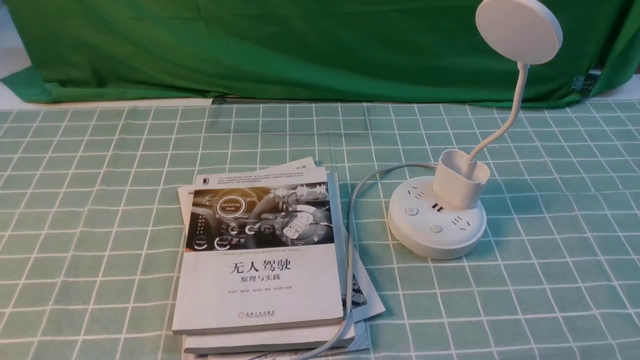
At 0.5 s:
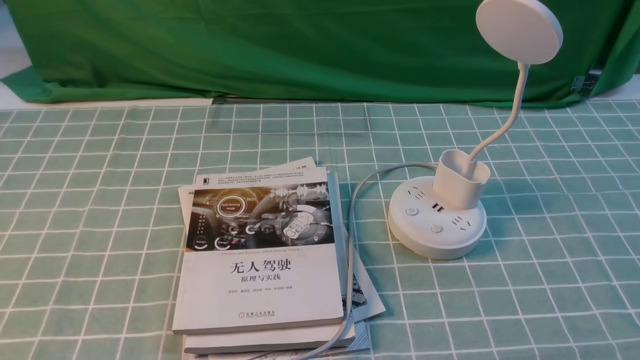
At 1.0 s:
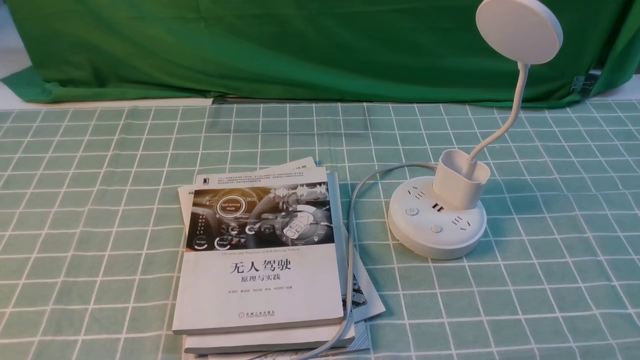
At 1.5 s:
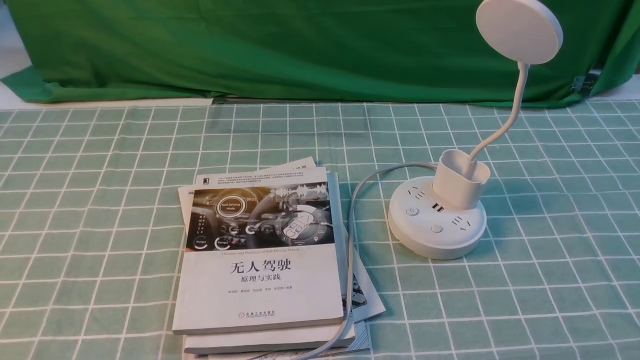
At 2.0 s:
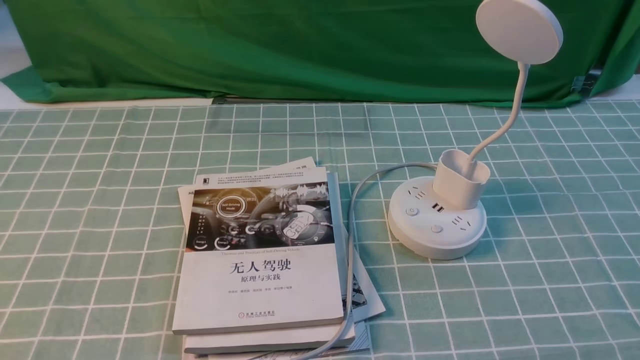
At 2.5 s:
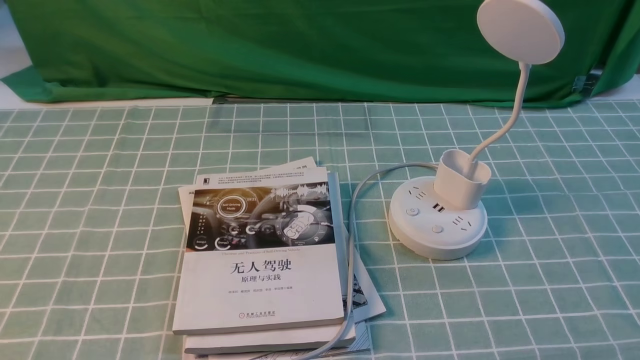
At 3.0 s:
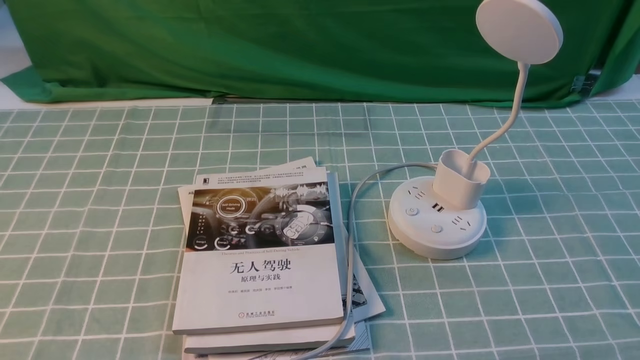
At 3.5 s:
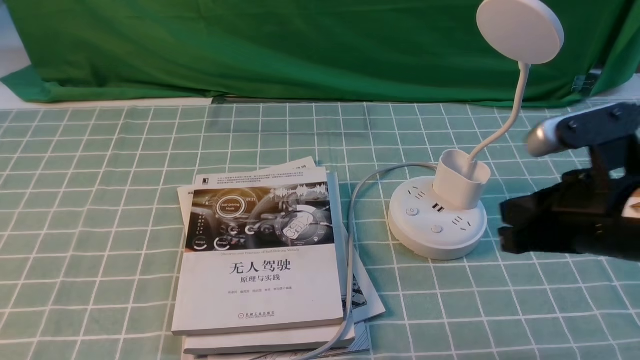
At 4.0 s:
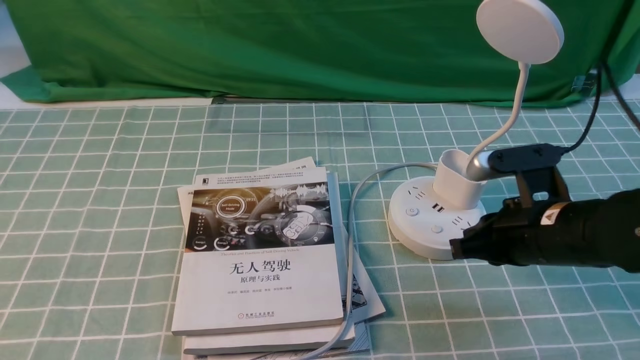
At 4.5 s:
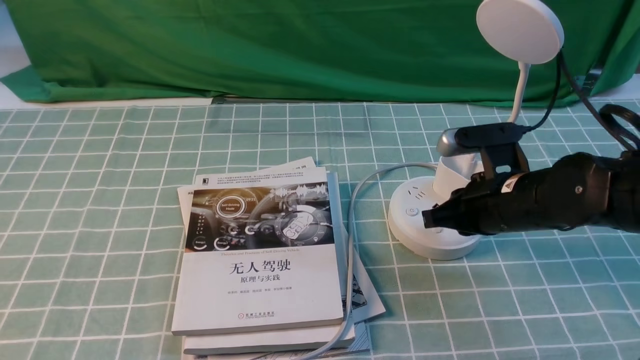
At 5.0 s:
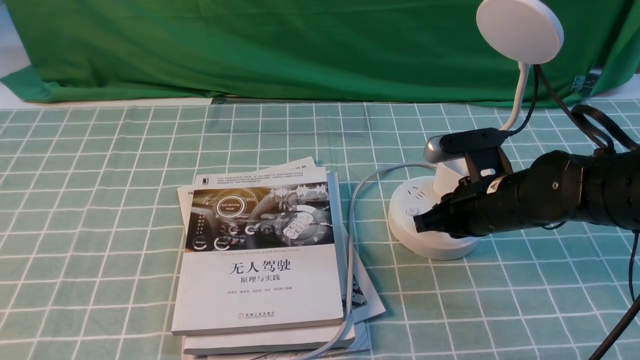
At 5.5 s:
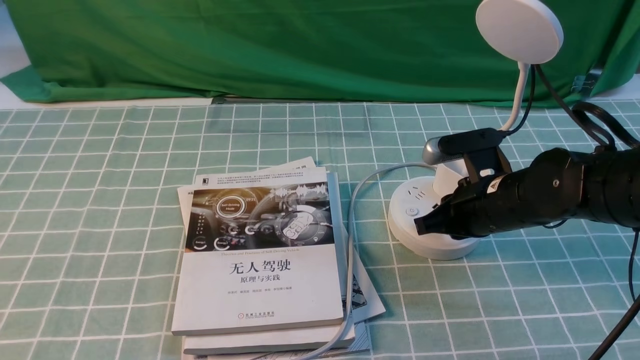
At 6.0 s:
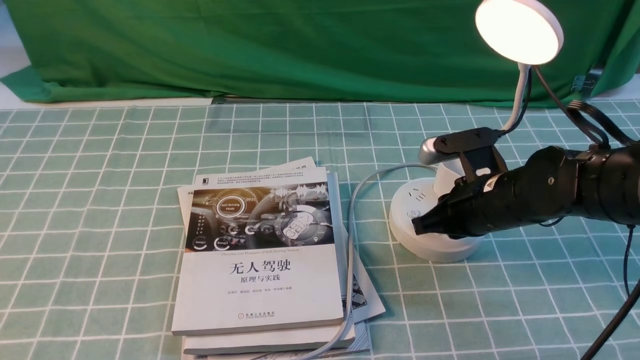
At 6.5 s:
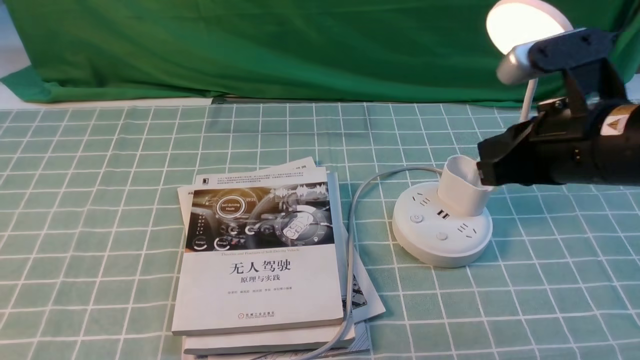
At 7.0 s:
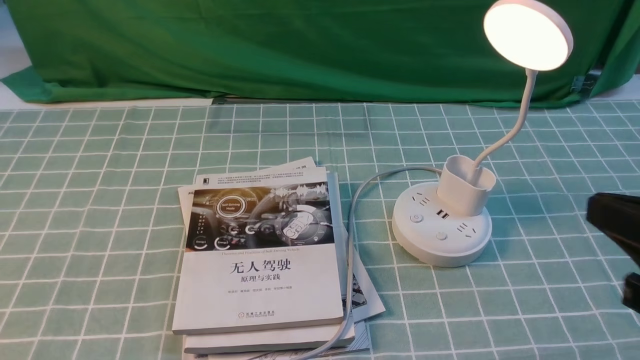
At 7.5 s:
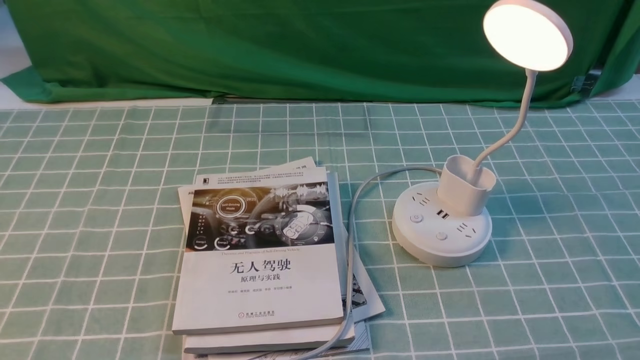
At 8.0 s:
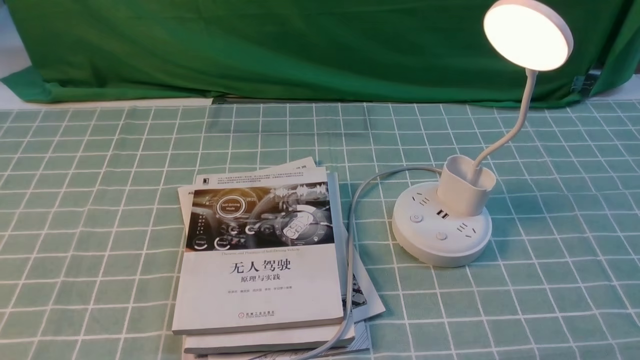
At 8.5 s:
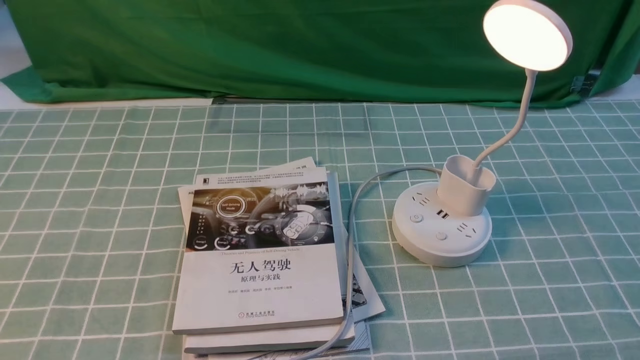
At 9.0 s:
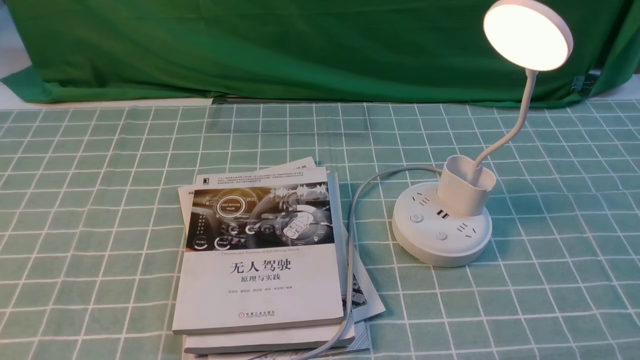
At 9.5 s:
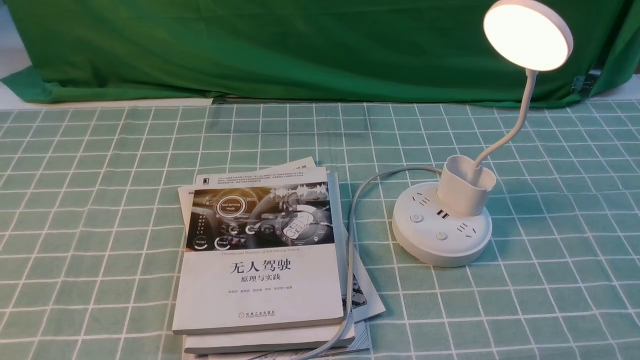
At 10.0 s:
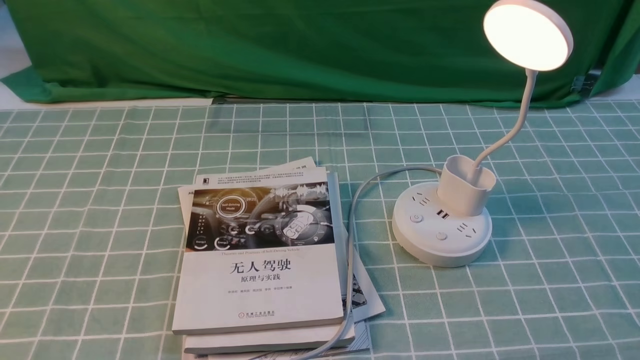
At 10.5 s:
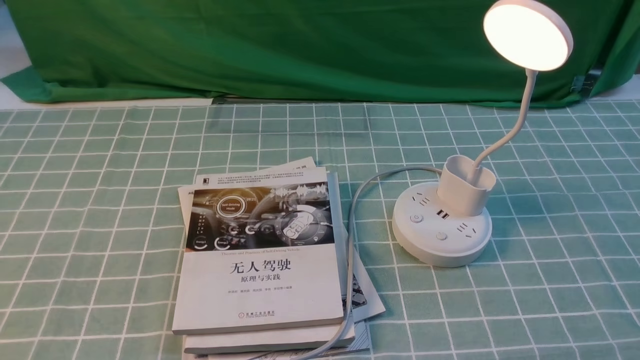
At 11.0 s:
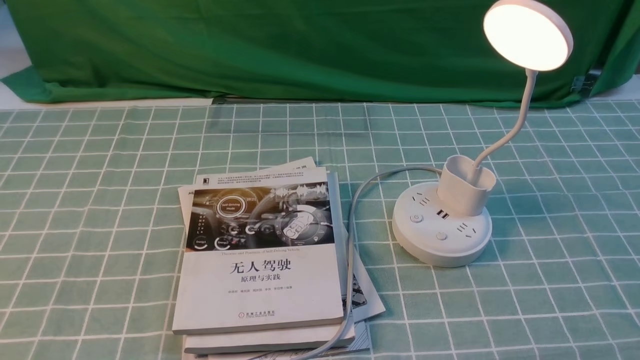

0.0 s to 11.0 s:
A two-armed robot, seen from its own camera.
Step, 0.0 to 6.0 s: use the right arm to press the button switch on the lamp holder.
2.0 to 3.5 s: The right gripper shifts approximately 20 cm forward, to the left and upward, and closes.
3.5 to 5.5 s: The right gripper moves forward and downward, roughly 15 cm.
5.5 to 7.5 s: The right gripper goes approximately 30 cm backward, upward and to the right.
9.0 to 11.0 s: Neither gripper changes place.

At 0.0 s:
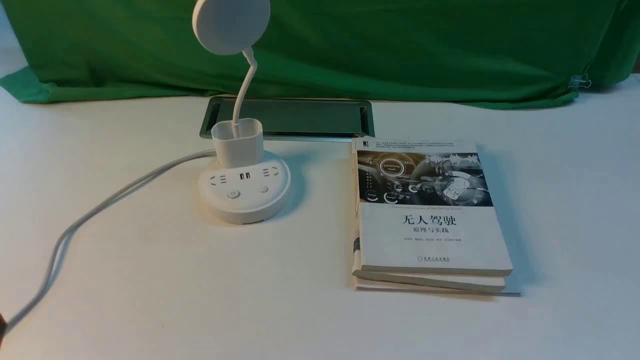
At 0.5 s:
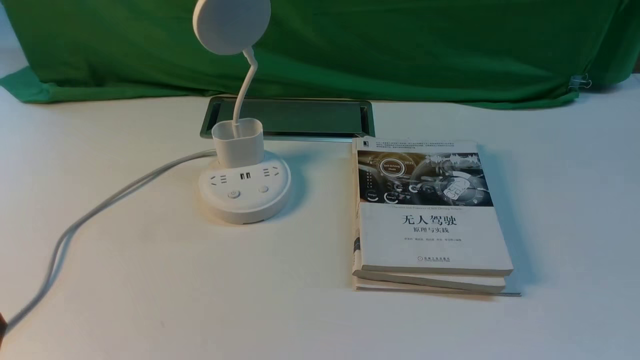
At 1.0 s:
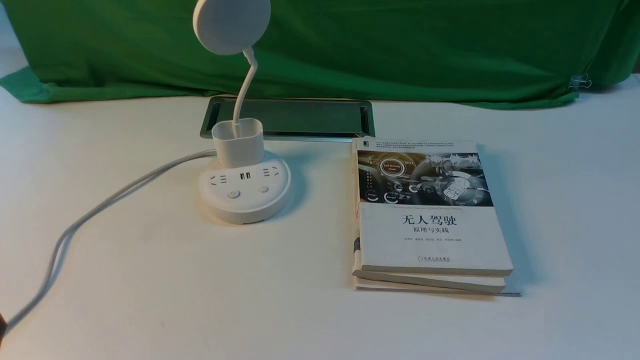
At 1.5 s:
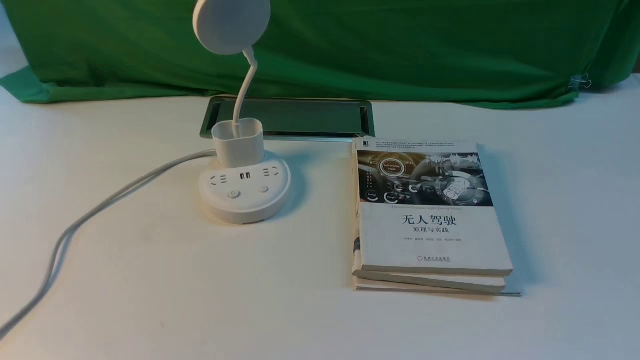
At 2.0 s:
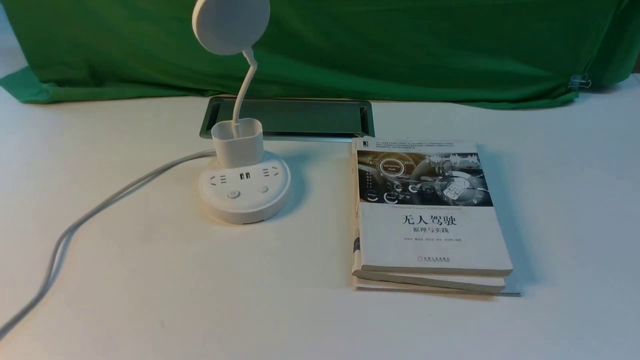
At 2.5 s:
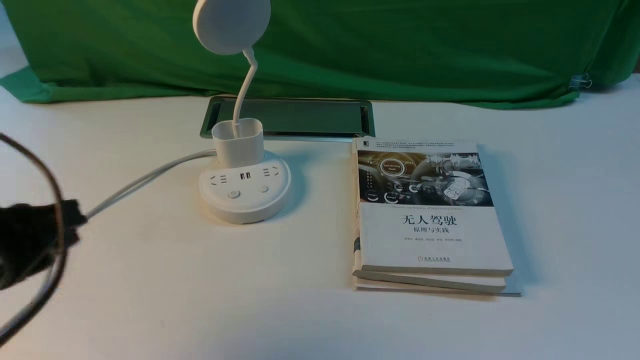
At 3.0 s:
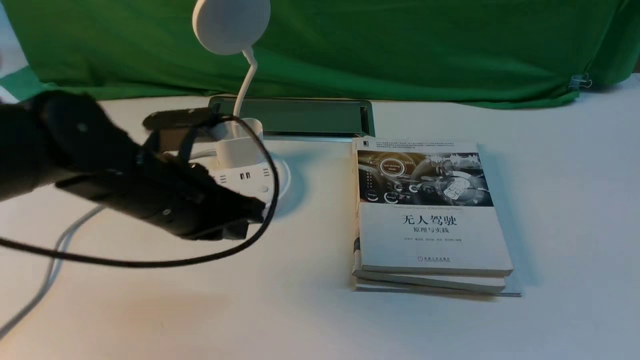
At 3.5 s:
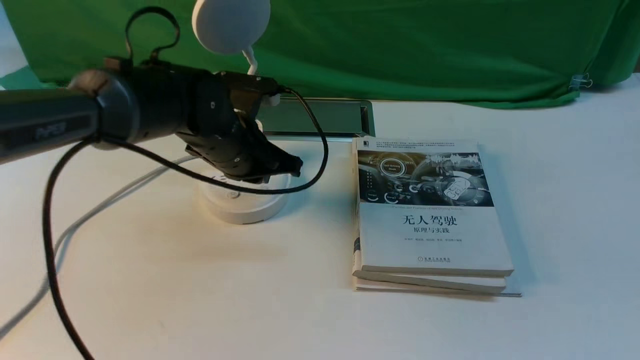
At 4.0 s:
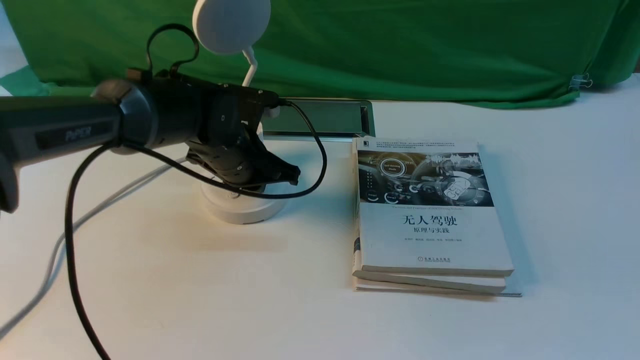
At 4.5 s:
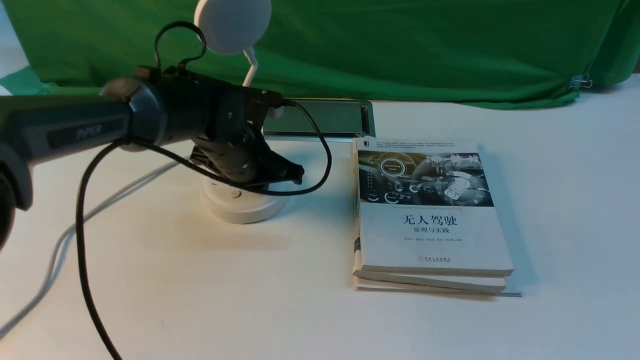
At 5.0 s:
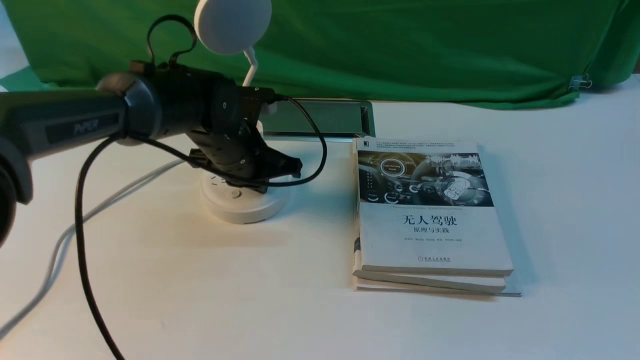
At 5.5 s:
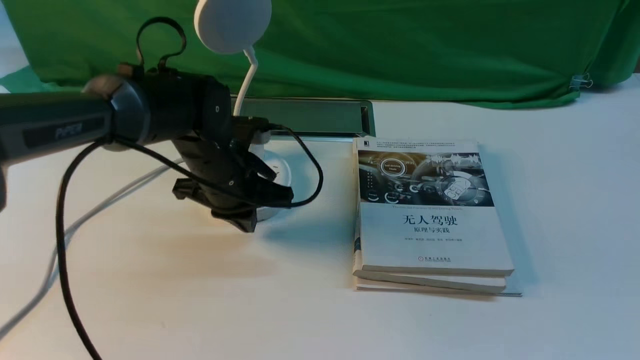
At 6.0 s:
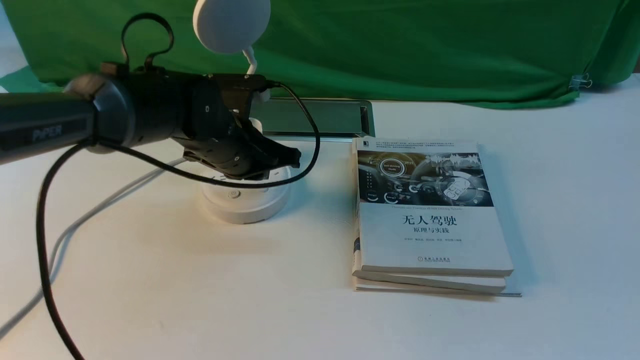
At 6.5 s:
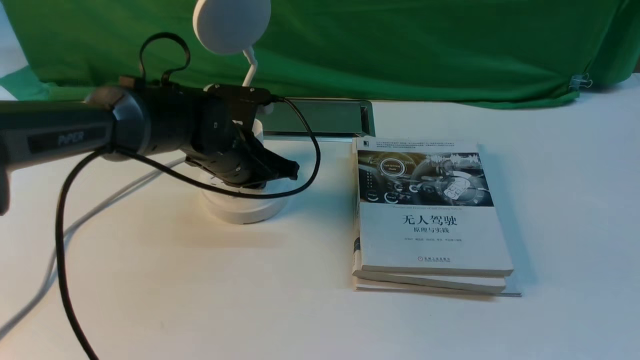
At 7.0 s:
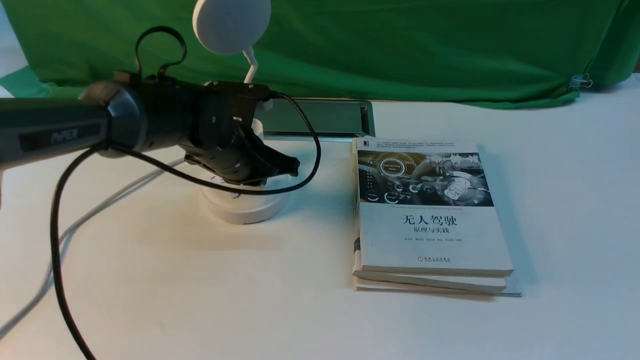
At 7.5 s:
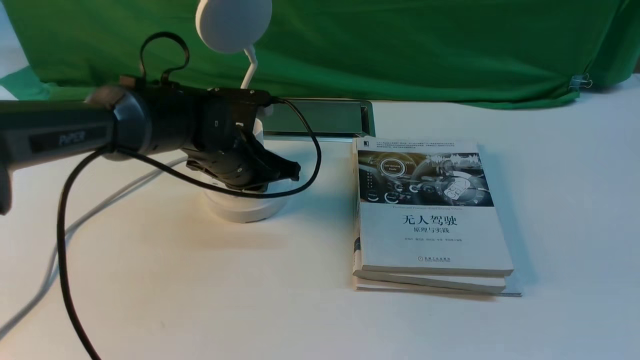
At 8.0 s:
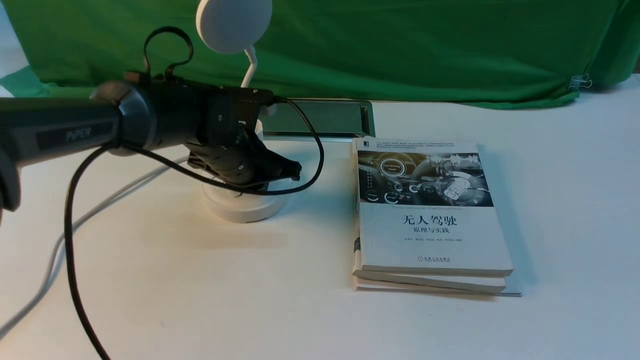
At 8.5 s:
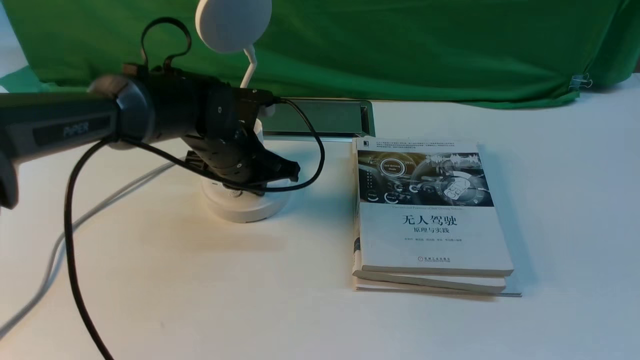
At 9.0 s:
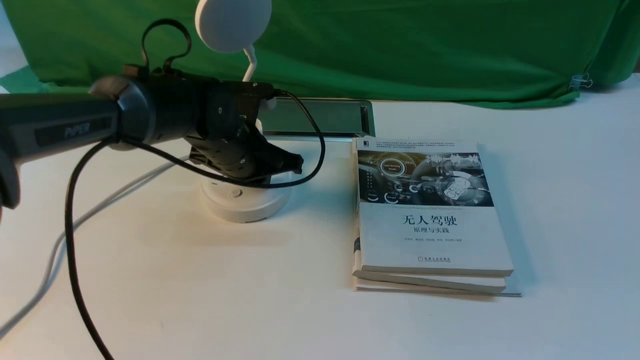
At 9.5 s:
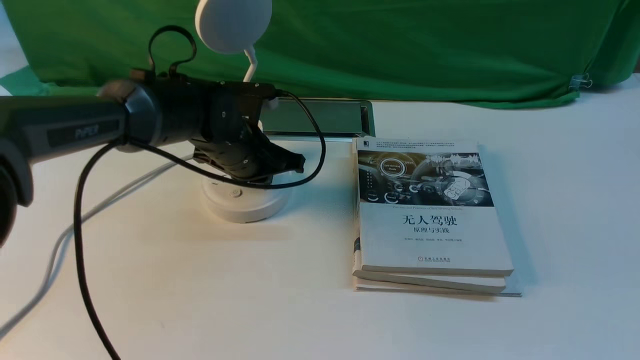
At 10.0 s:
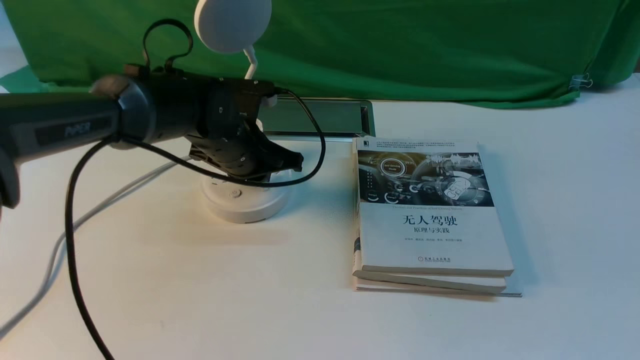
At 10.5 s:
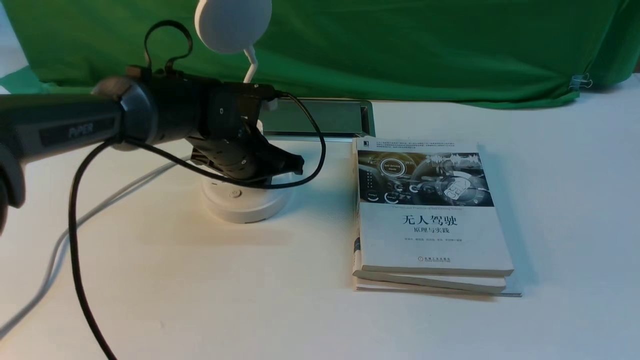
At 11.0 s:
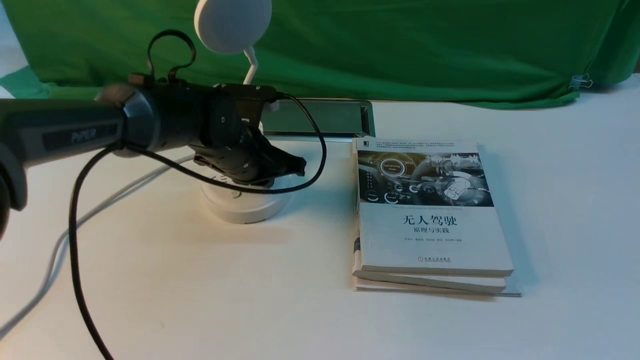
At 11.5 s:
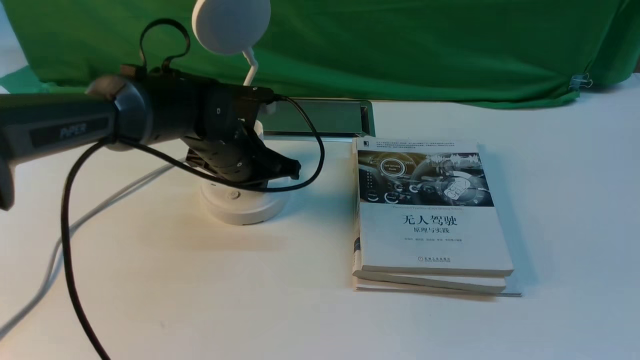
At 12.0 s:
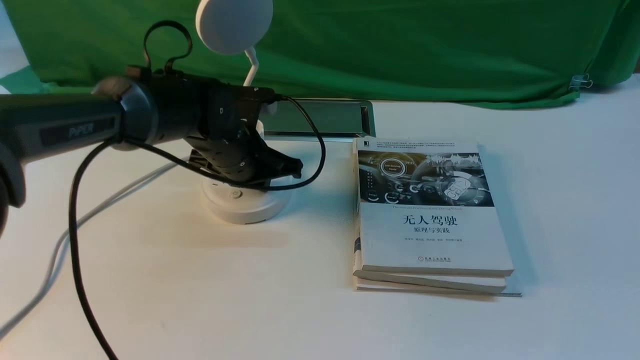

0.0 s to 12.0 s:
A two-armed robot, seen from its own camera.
2.0 to 4.0 s: The left gripper shifts some 40 cm forward and to the right, and closes up.
4.0 to 10.0 s: There are only small adjustments of the grippers.
10.0 to 12.0 s: Both grippers stay about where they are.
